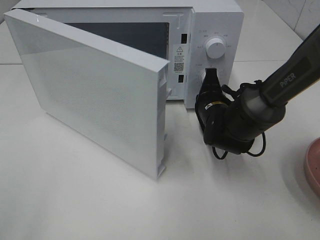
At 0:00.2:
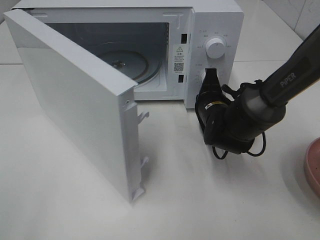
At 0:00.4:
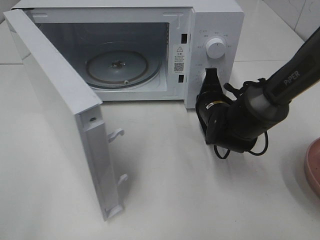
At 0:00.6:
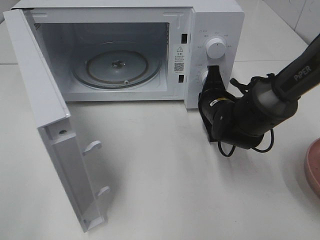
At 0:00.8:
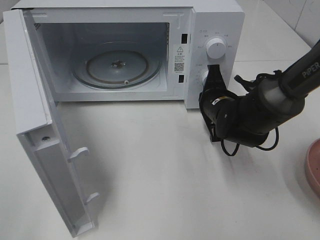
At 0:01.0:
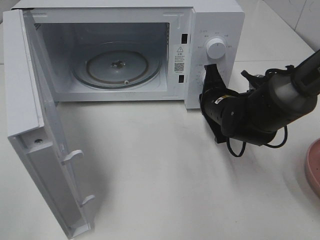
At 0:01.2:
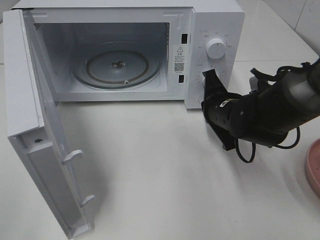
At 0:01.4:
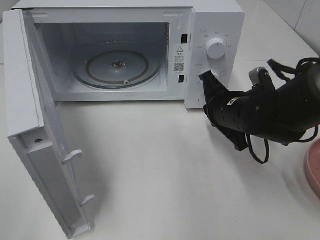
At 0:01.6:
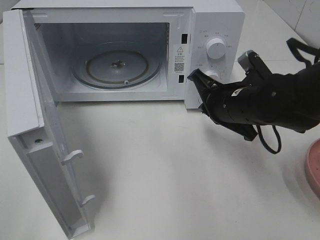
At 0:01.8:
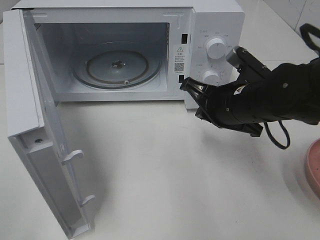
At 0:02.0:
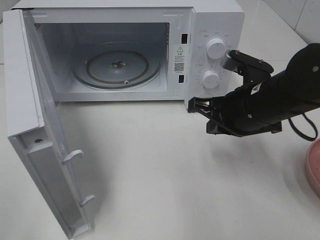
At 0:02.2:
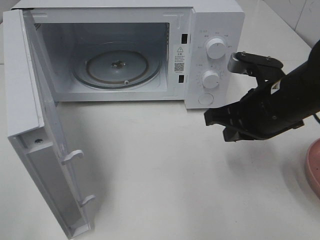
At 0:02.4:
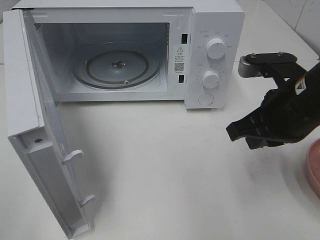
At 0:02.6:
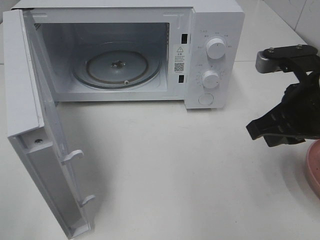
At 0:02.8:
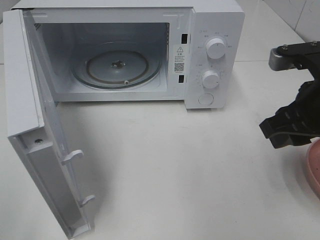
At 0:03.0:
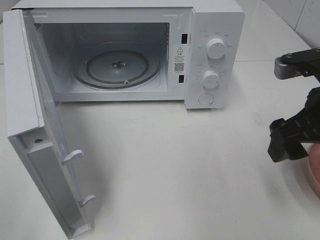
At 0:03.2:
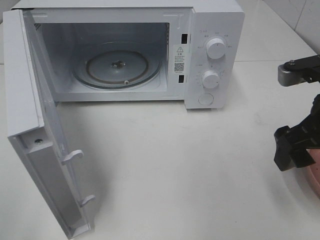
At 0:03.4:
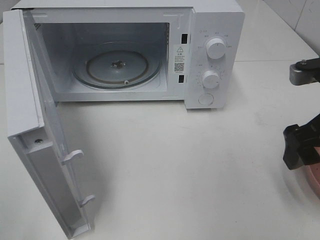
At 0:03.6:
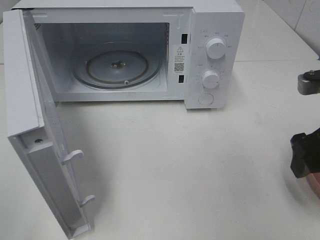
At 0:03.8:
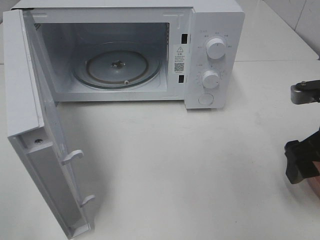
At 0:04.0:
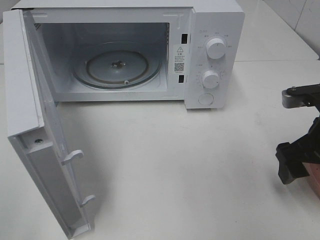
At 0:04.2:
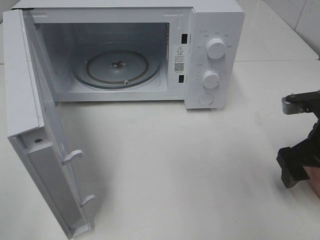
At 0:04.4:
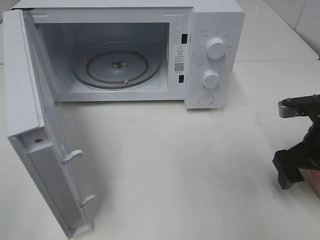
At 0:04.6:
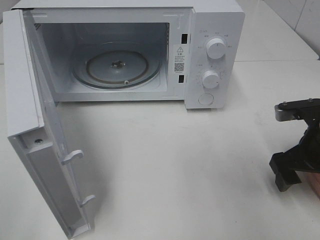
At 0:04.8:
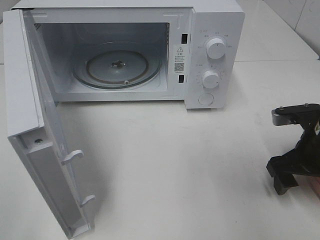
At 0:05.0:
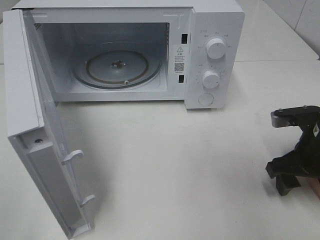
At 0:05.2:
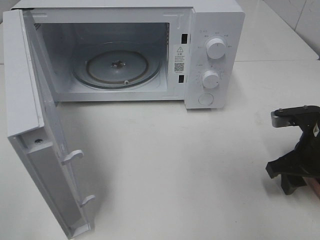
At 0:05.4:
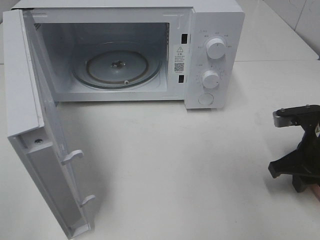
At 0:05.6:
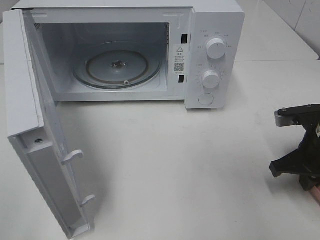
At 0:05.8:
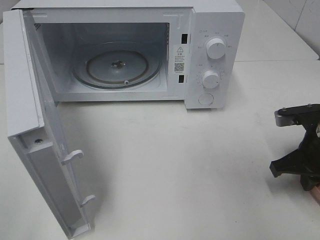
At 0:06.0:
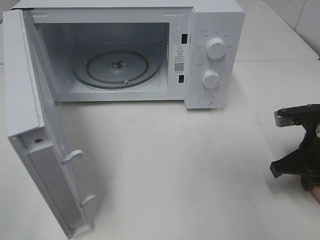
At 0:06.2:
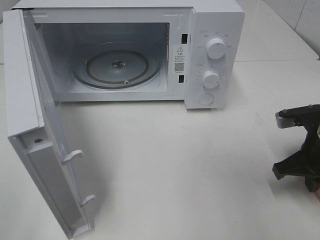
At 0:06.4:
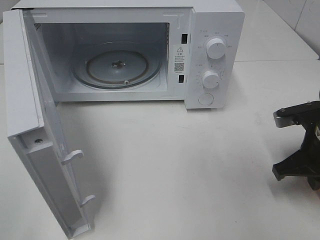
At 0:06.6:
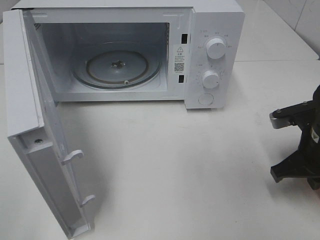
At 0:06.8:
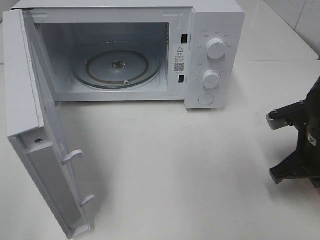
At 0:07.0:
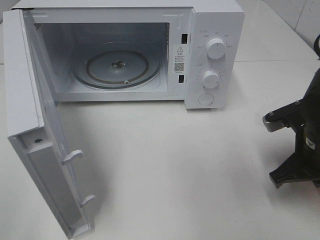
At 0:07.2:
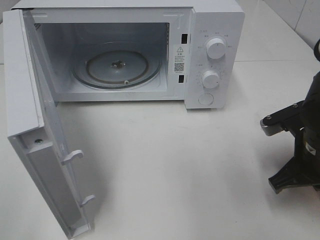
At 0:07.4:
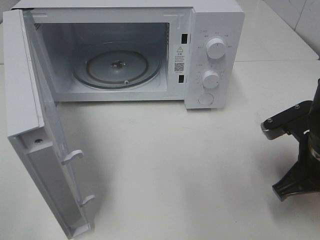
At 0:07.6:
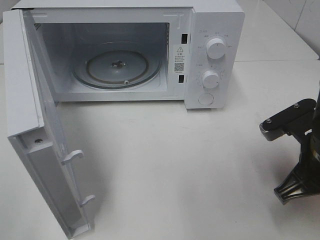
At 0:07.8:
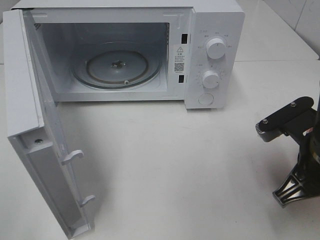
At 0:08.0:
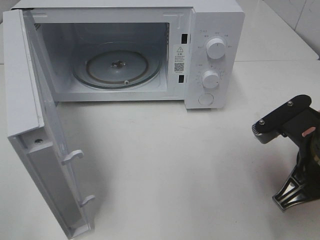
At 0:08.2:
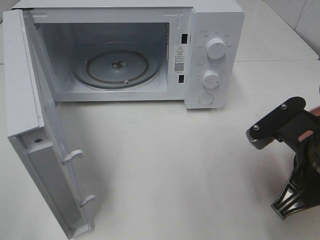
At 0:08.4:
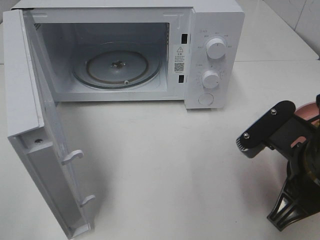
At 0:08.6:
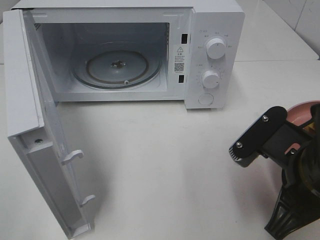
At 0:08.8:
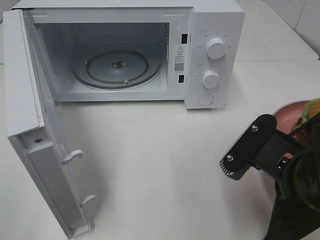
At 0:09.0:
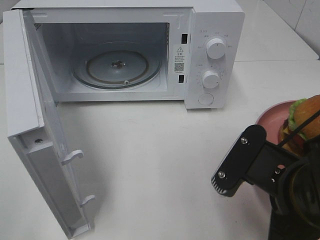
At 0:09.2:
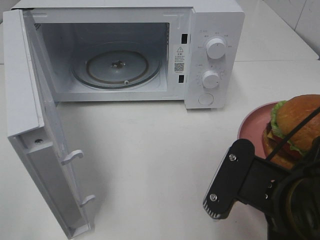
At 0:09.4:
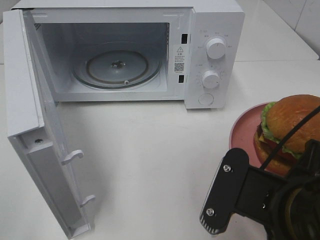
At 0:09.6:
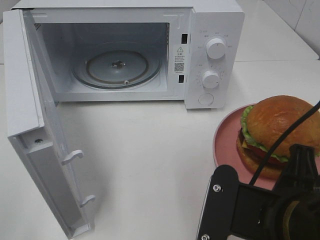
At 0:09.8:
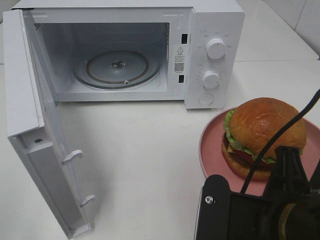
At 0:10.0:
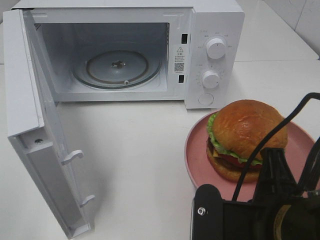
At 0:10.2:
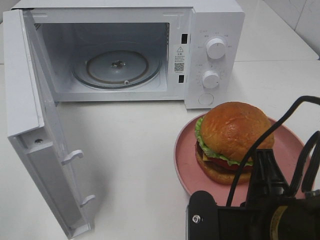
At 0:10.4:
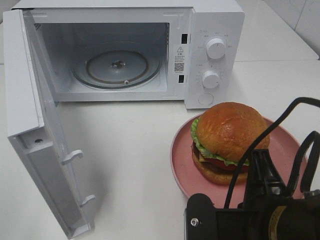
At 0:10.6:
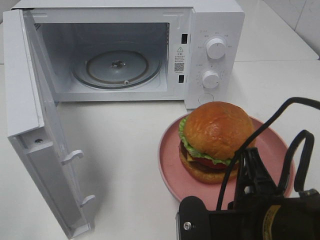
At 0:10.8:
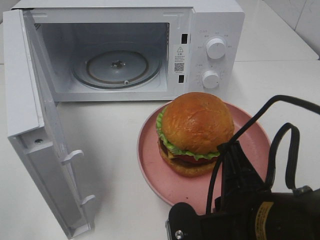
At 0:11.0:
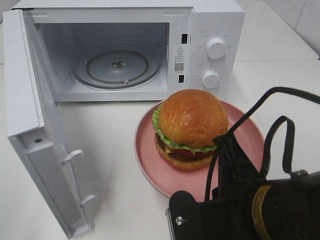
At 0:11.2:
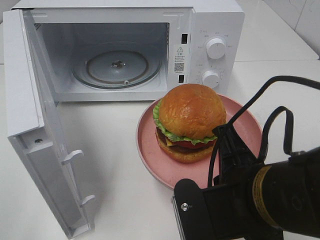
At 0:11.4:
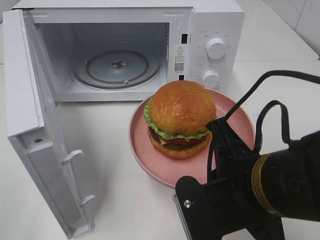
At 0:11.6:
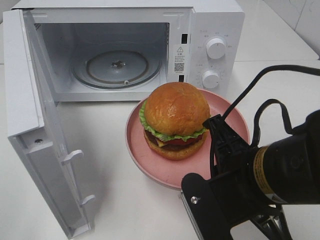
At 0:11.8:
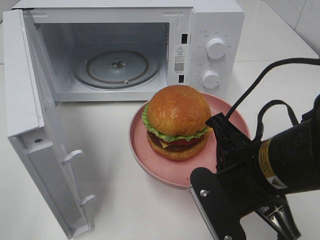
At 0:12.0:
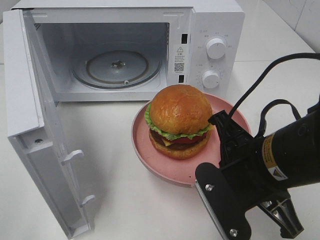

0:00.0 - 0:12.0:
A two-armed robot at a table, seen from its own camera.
Task of the whole recording: Heat the burger.
Step, 0:01.2 - 0:05.8: Right hand: grab the plate with the hamburger.
0:00.0 - 0:01.6: The right gripper travels upward and backward by roughly 10 cm.
0:01.6 - 0:03.0: The right gripper heads upward, to the right and backward, covering approximately 15 cm, and opens its fingers.
0:03.0 - 0:04.4: The right gripper travels downward by approximately 10 cm.
0:04.4 - 0:06.0: The right gripper closes.
0:06.0 - 0:07.6: The right gripper travels backward and to the left by approximately 10 cm.
0:07.6 - 0:09.0: The right gripper travels backward and to the left by about 10 cm.
0:10.4 - 0:12.0: The right gripper travels forward by approximately 10 cm.

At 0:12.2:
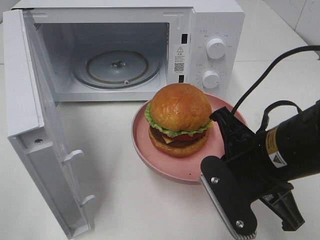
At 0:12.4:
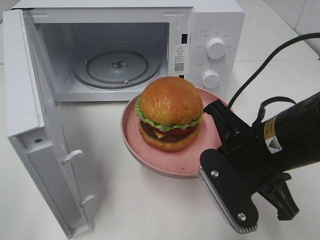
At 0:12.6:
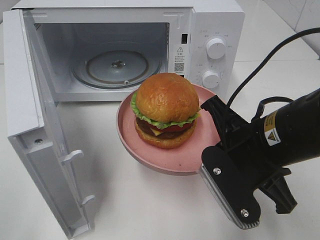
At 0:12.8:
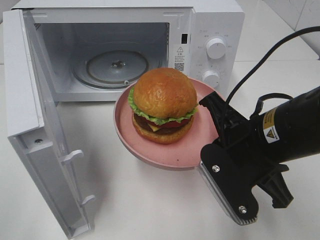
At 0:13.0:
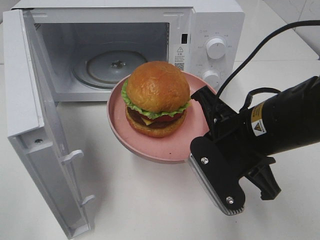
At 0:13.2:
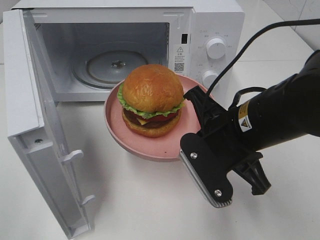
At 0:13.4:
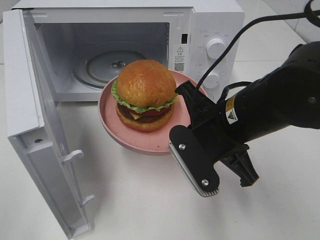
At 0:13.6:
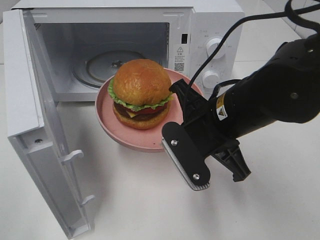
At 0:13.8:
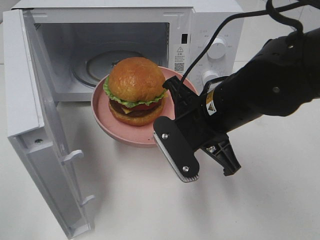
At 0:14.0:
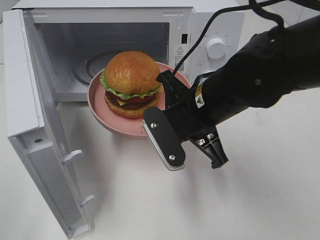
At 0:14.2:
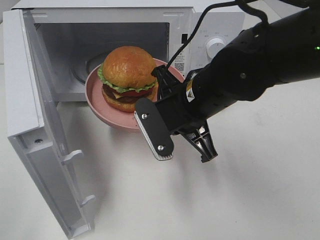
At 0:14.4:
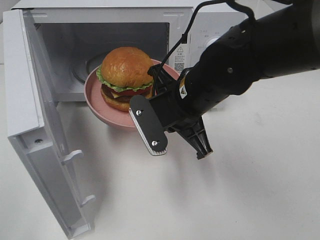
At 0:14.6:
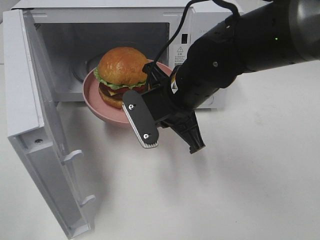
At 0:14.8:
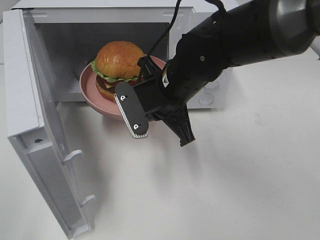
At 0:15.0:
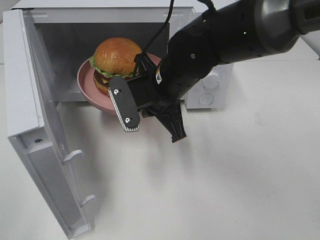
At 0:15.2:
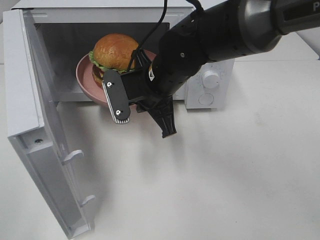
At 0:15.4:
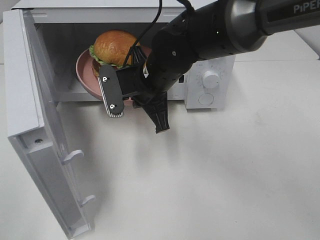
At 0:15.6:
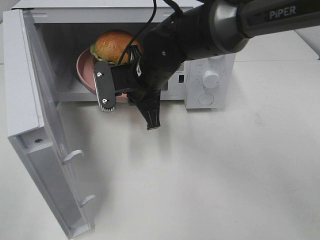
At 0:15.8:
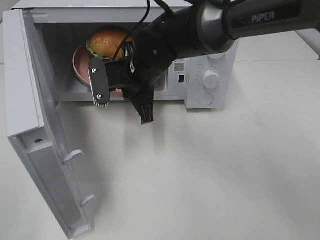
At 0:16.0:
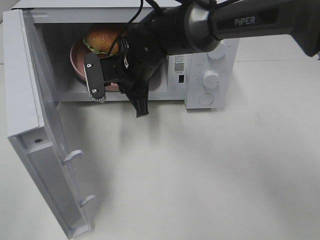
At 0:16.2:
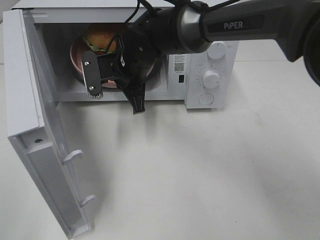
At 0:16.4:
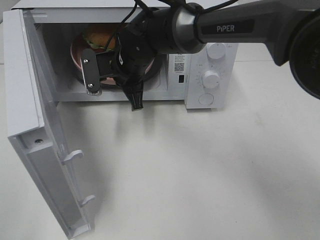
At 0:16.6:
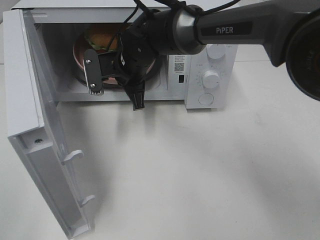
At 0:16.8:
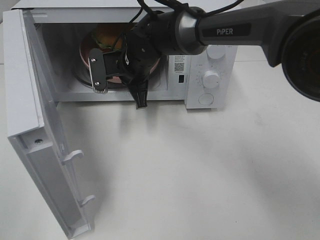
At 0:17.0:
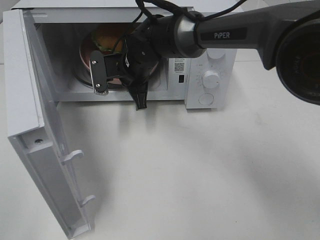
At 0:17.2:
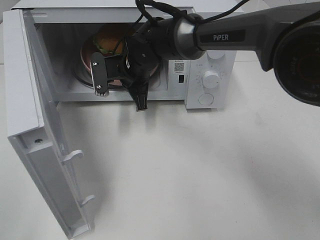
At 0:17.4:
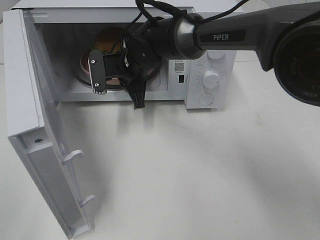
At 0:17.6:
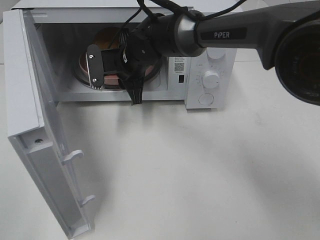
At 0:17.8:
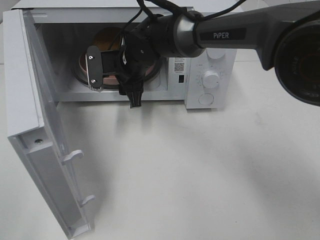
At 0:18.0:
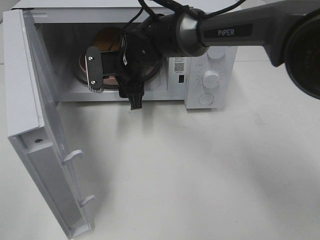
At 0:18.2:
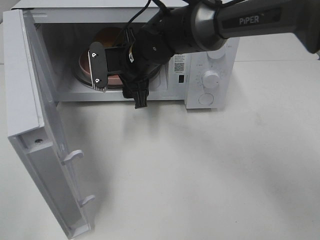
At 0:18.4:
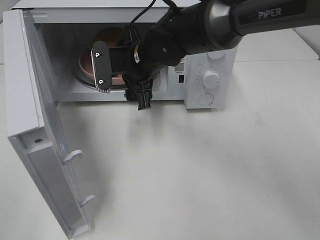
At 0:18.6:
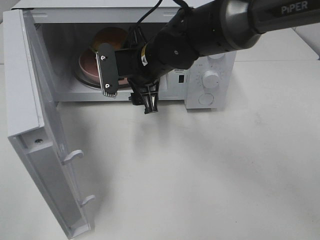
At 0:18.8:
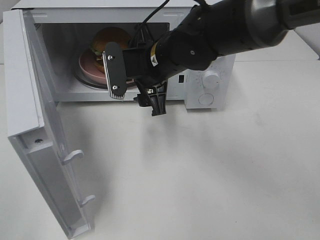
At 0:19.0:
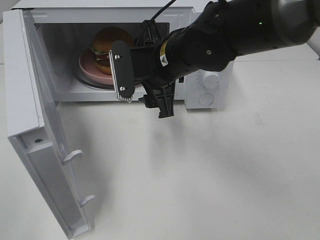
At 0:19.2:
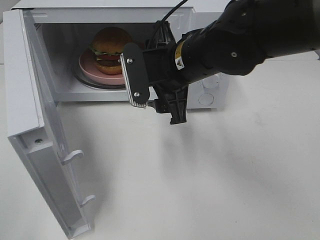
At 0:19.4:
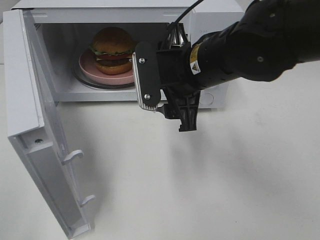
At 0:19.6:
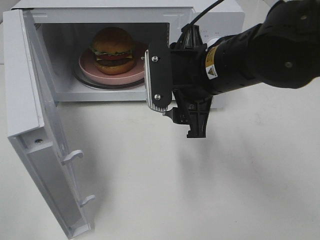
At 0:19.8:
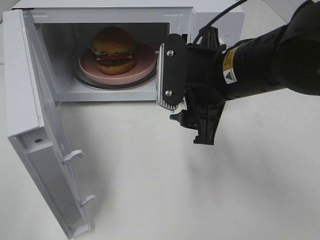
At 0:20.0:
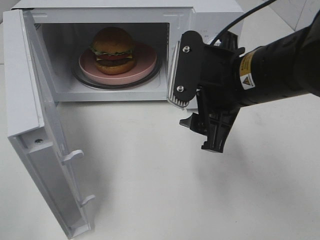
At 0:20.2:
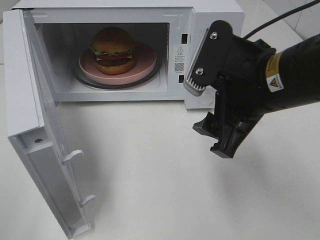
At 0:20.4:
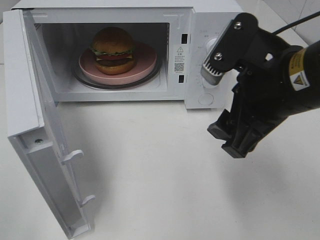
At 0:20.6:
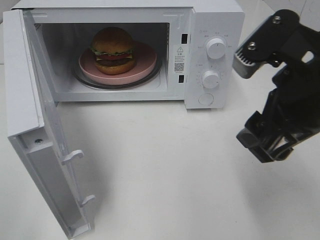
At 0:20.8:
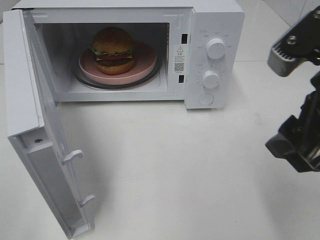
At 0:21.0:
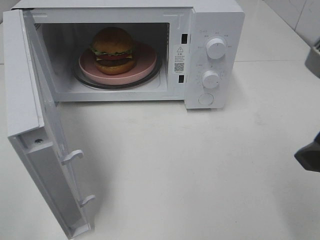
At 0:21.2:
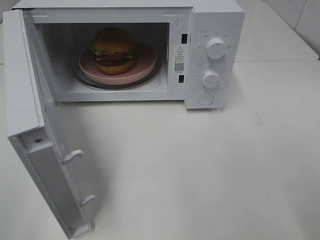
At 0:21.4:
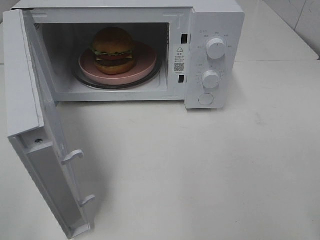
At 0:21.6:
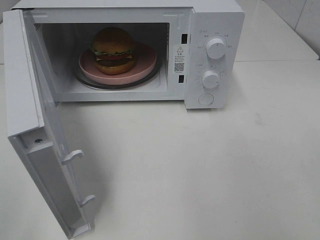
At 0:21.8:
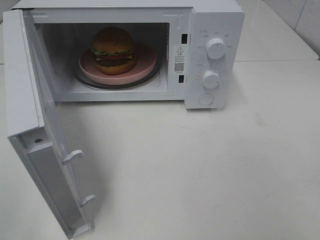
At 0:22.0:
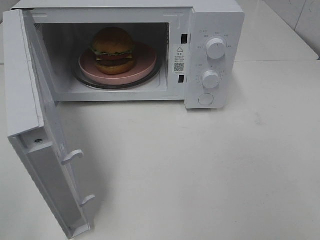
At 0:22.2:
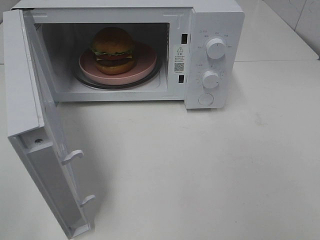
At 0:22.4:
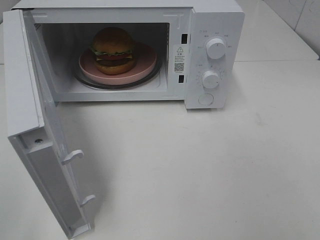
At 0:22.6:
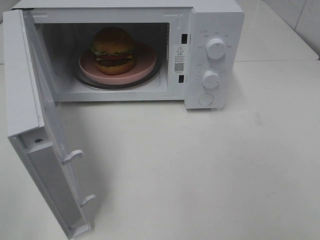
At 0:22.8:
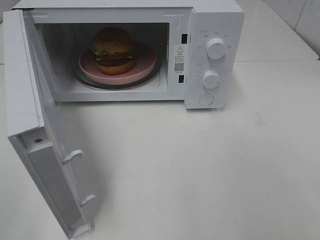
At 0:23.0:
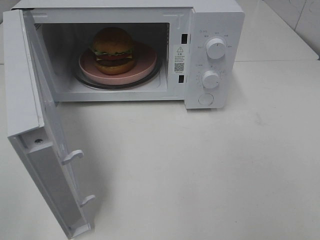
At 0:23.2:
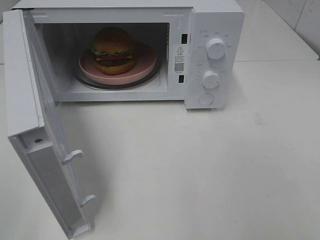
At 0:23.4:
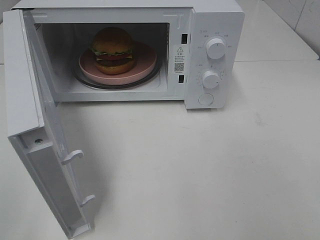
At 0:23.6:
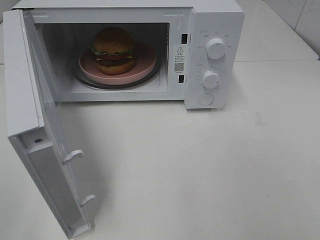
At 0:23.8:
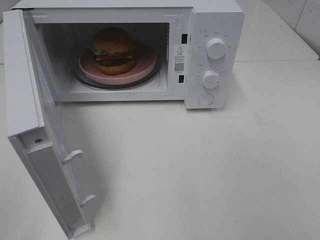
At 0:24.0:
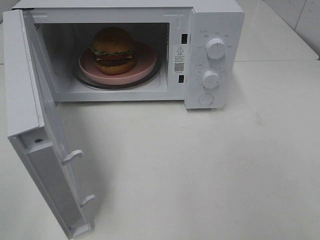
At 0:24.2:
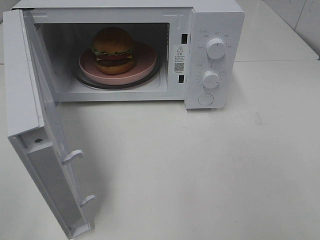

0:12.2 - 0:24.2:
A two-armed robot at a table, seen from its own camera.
Task of the whole recording: Heat the burger.
Step, 0:12.2 - 0:17.6: Right hand: place the plate in the microwave.
0:12.2 - 0:13.8: The right gripper moves forward and to the left, approximately 10 cm.
0:13.8 - 0:15.2: The right gripper heads forward and to the left, covering about 10 cm.
0:15.2 - 0:16.6: The right gripper goes roughly 10 cm forward.
0:16.6 - 0:18.2: The right gripper opens up.
0:18.2 - 0:19.8: The right gripper shifts some 20 cm backward, to the right and upward.
0:19.8 - 0:21.2: The right gripper moves backward, to the right and upward, some 20 cm.
0:22.6 - 0:24.2: The two grippers keep their place.
